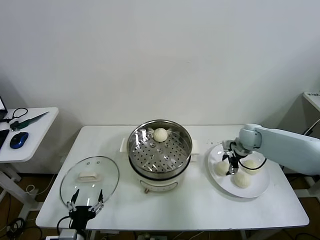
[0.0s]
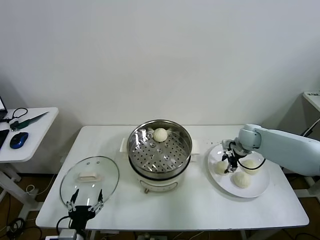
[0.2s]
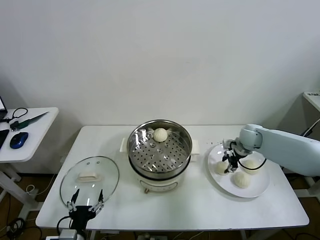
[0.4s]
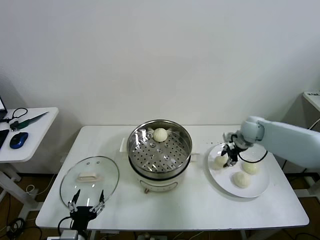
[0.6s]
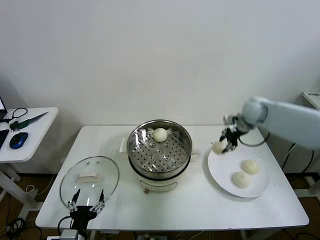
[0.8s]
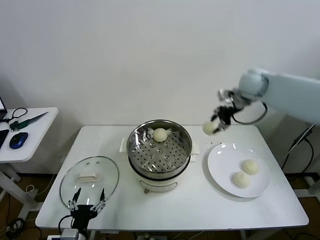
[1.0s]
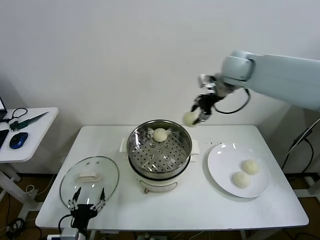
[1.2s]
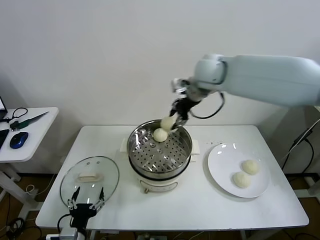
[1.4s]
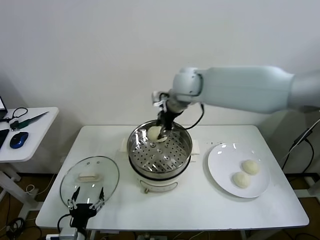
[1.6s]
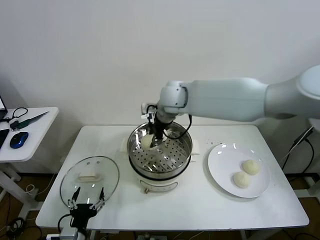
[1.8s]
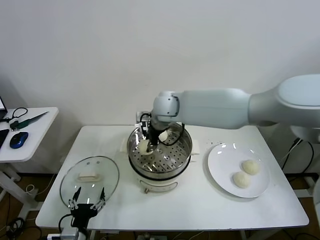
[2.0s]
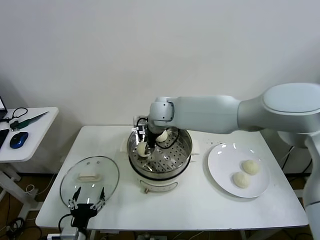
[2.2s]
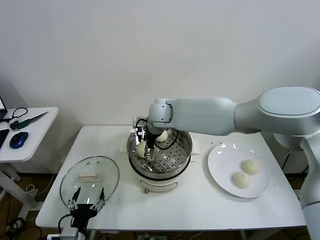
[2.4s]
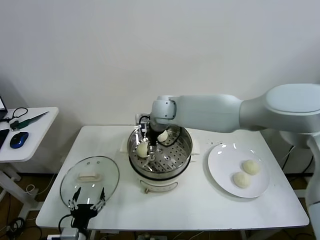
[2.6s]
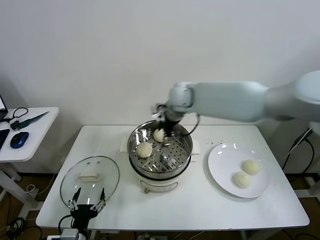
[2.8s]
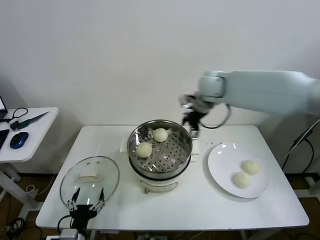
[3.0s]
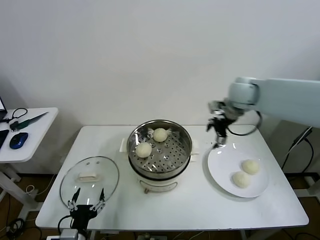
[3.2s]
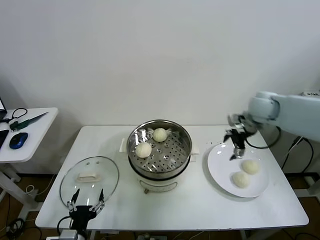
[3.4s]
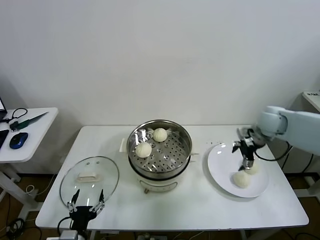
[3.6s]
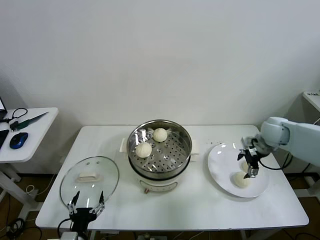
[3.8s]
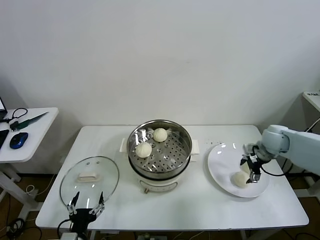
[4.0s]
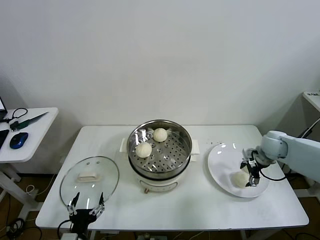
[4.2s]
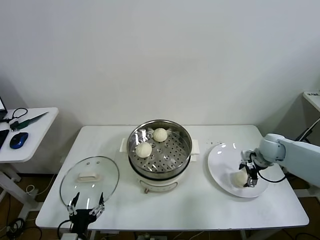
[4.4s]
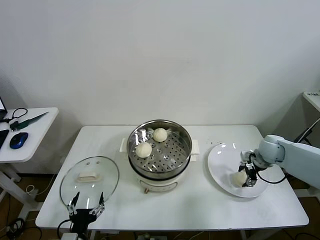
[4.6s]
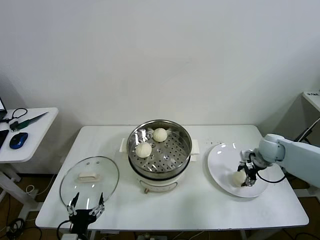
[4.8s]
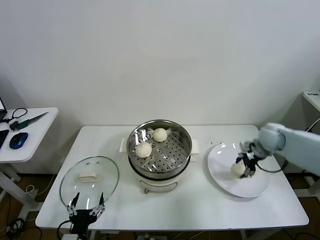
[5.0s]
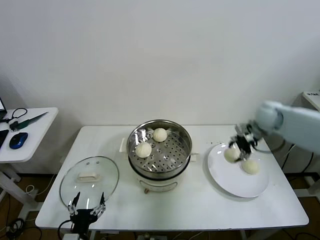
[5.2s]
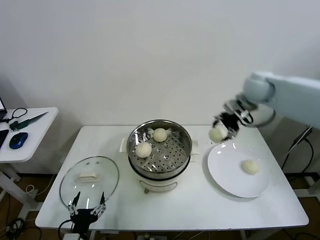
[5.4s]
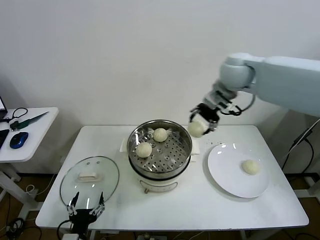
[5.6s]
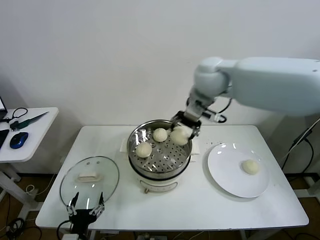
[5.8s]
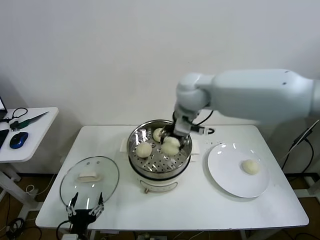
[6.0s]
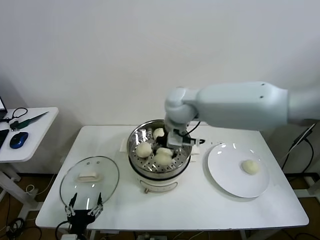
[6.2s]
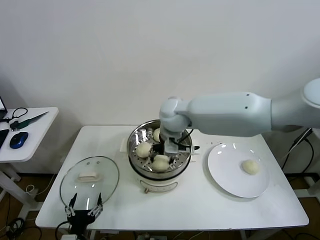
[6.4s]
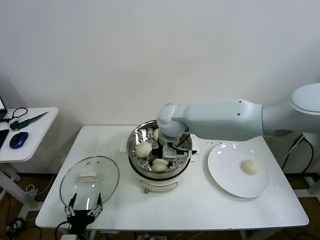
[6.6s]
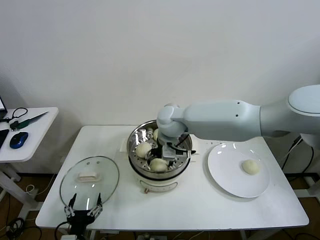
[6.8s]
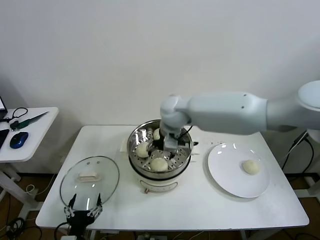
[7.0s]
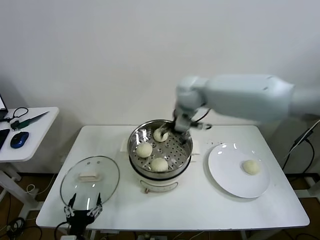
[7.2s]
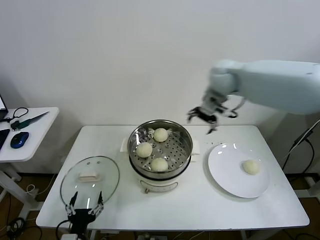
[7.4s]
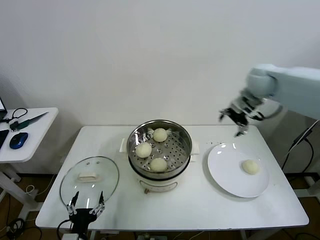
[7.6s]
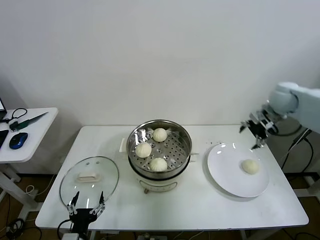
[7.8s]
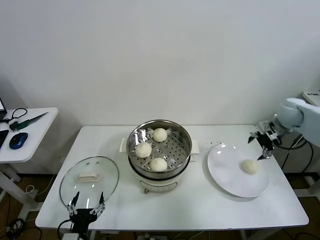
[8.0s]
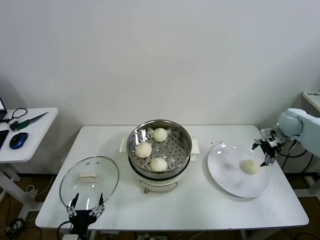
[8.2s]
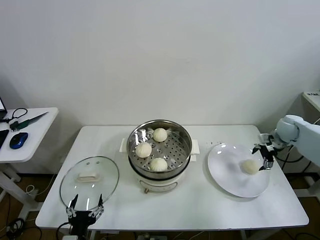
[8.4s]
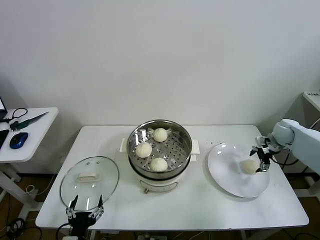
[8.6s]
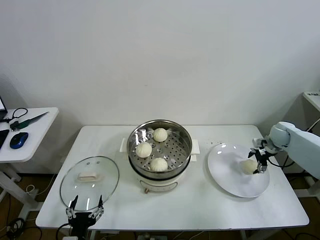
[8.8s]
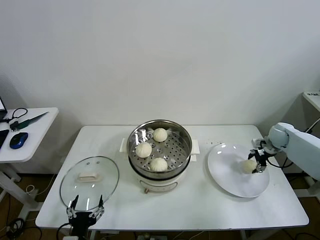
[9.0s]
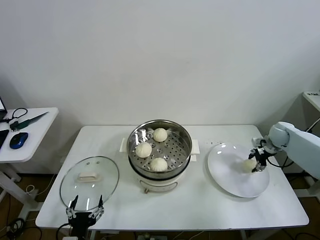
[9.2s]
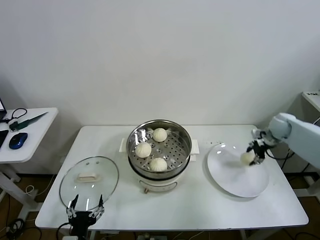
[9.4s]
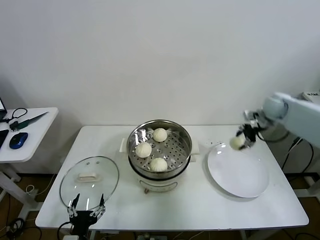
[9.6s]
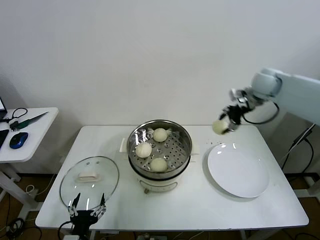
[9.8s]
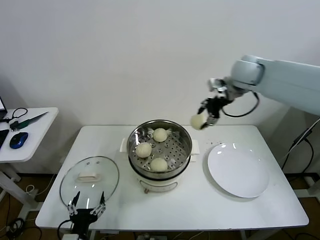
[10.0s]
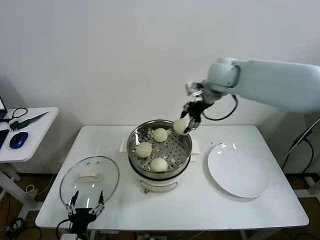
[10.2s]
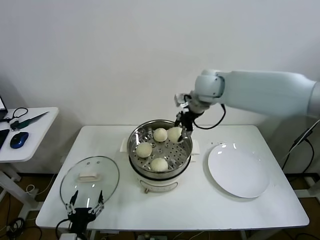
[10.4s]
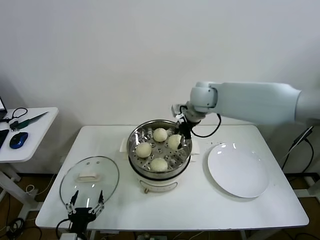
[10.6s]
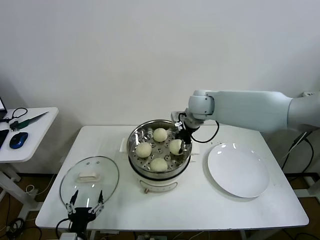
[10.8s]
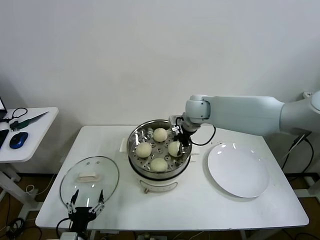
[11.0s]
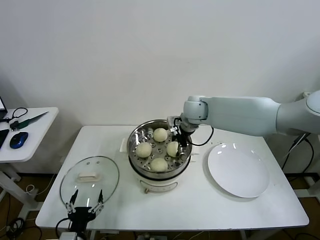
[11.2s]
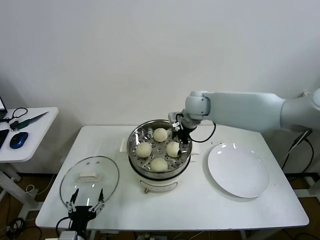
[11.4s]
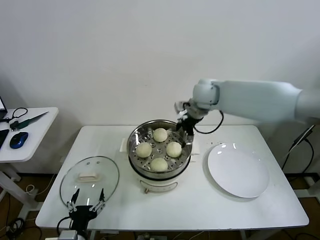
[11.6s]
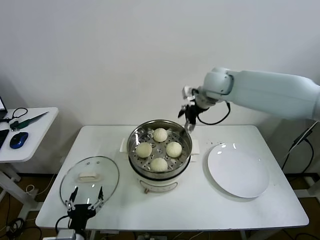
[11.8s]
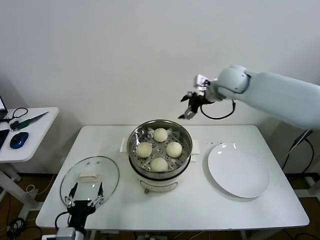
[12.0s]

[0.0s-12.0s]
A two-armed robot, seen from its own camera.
Task of the whole recording: take steamed baozi put them in steamer then cover it.
Step, 0.4s to 2.6s: Place the baozi on the steamer with right gripper.
Step, 2.8s to 4.6s: Grasp the baozi in the plate with right gripper.
Step, 4.8s to 6.8s: Place the baozi on the steamer with right gripper.
Step, 7.0s to 9.0s: Grasp the baozi in the plate with right gripper.
Step, 9.2s to 11.4s: Place the baozi on the steamer with right gripper.
0.0s to 1.6s: The right gripper goes roughly 35 cm to the left and upward, and closes up.
1.6s to 3.0s: The right gripper goes approximately 15 cm to the right, and opens up.
3.0s to 4.4s: The right gripper shifts about 30 cm downward and to the right.
4.4s to 6.0s: The right gripper travels to the left and upward by roughly 40 cm, and closes.
6.0s to 7.6s: The right gripper goes some 25 cm to the right, and opens up.
7.6s to 9.0s: The right gripper moves downward and to the right, some 25 cm, and closes its fingers.
9.0s to 10.4s: The right gripper moves to the left and upward, some 40 cm.
10.4s to 12.0s: The right gripper travels to the right by roughly 10 cm, and opens.

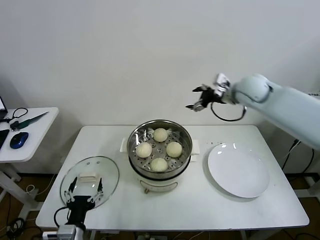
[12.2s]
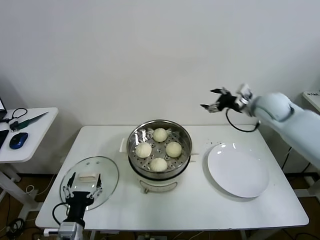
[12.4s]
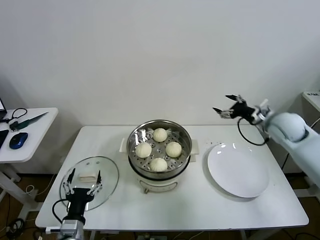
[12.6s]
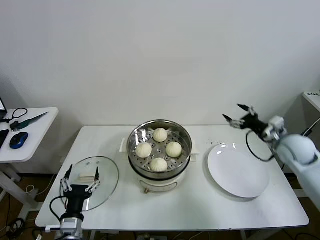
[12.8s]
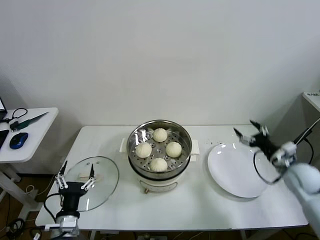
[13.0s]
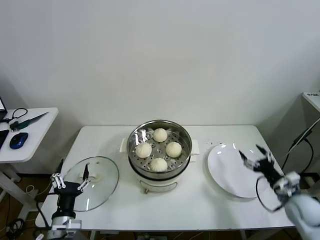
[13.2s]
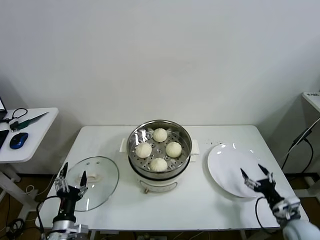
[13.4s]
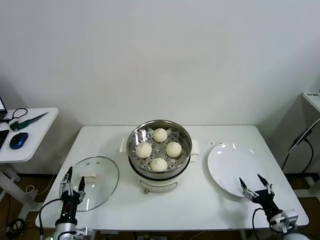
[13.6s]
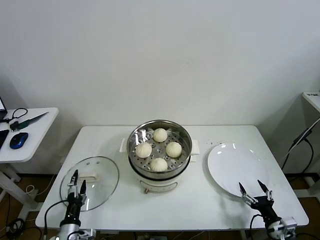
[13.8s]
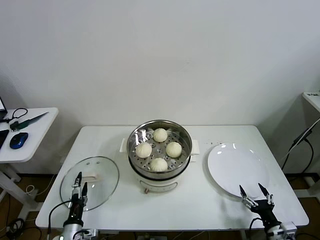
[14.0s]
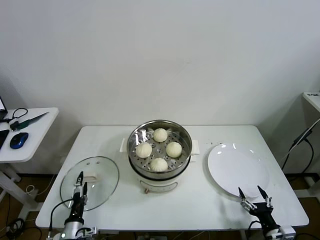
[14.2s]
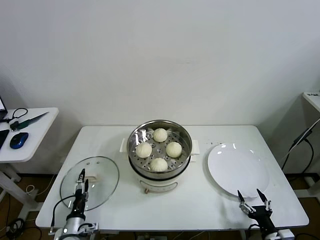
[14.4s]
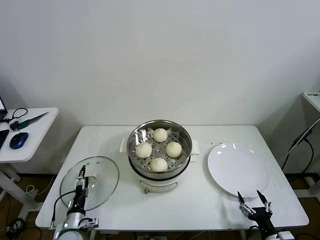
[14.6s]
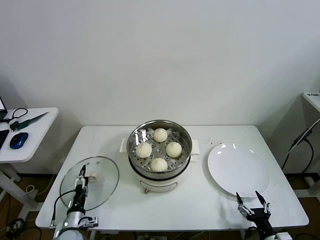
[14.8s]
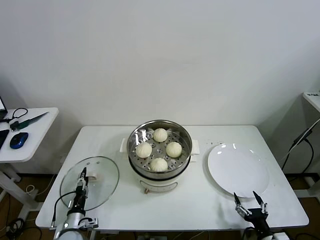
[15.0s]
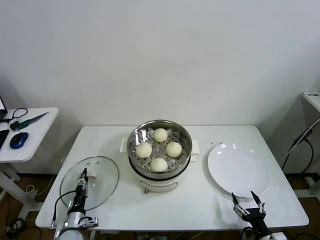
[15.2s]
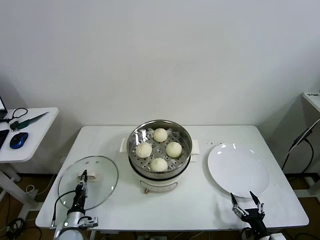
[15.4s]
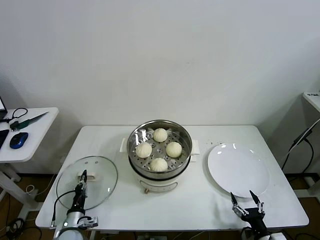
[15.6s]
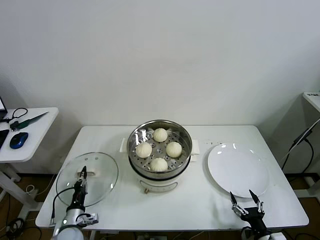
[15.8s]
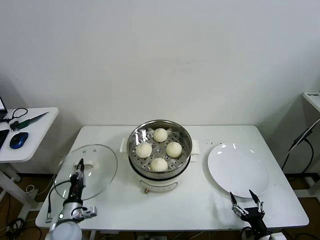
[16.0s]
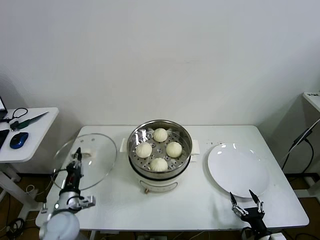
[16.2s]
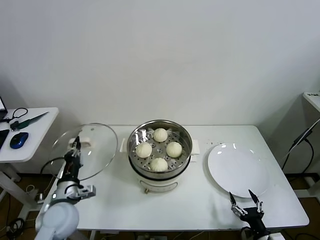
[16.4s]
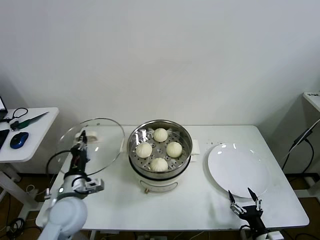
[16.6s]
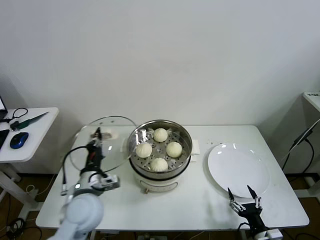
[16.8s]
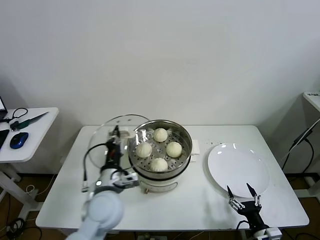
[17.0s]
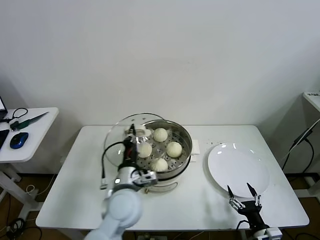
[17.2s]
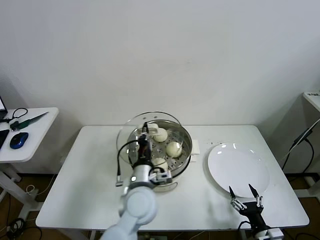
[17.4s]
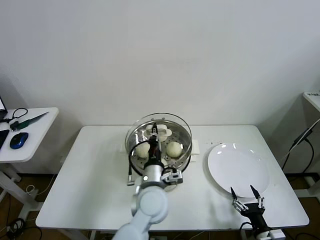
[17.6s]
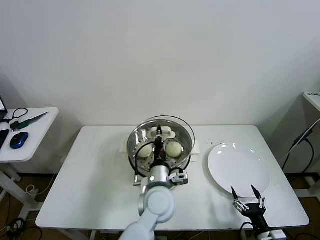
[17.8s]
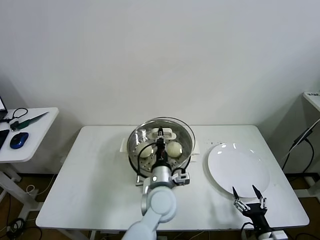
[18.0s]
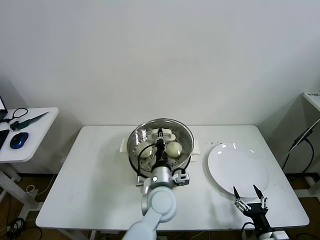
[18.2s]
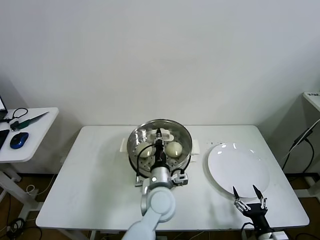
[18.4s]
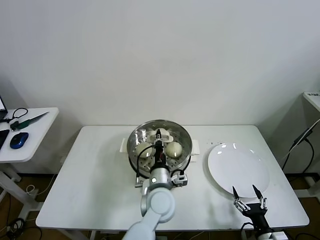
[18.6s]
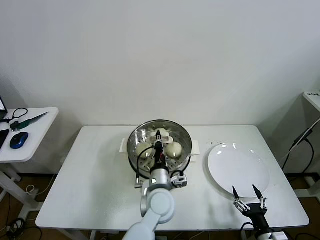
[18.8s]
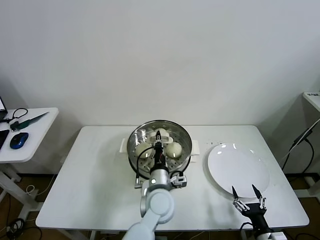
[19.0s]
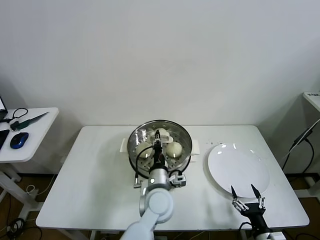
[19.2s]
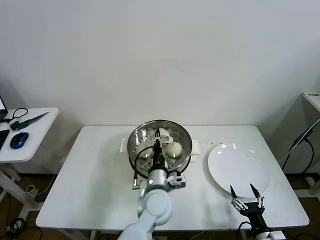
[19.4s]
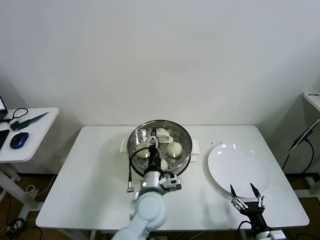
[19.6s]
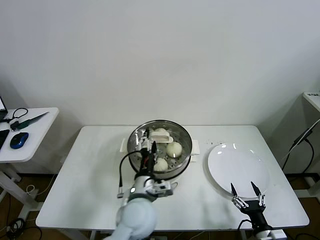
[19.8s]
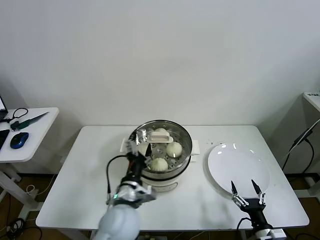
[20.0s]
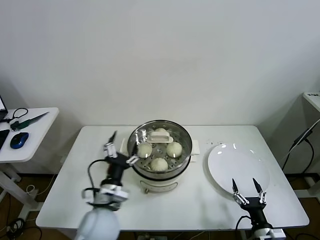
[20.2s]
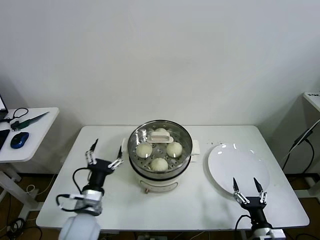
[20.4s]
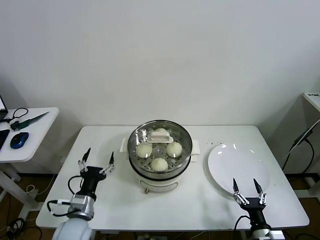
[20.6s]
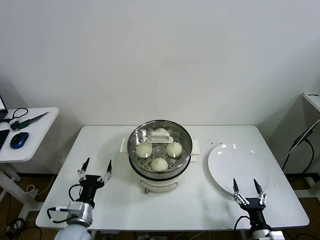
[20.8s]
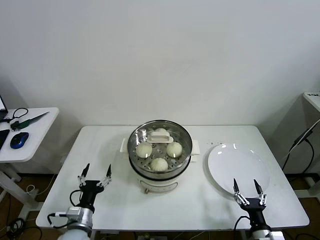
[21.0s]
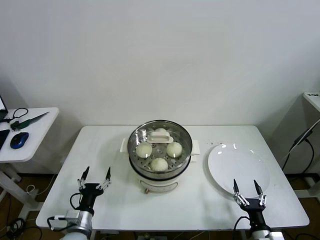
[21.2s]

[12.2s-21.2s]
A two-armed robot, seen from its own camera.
Task of the whole recording: take steamed baozi put them in steamer then cover it.
Step, 12.2s to 15.4s: Grasp the pot lid with left gripper.
Step, 15.6s to 19.2s: Place the pot lid on the steamer with left gripper.
12.2s to 13.8s: The right gripper goes roughly 50 cm downward and backward. Meanwhile the left gripper goes about 10 cm downward and to the left.
13.8s to 15.2s: The right gripper ends up roughly 5 cm from where it was. The left gripper shifts some 10 cm downward and forward, and closes up.
15.2s to 16.6s: The left gripper travels upward by about 20 cm, and closes up.
16.6s to 18.2s: The left gripper is displaced to the right by approximately 25 cm.
18.2s to 19.8s: The left gripper is displaced to the left by about 5 cm, and opens its fingers.
19.8s to 21.2s: The left gripper heads to the left and downward, covering some 25 cm.
